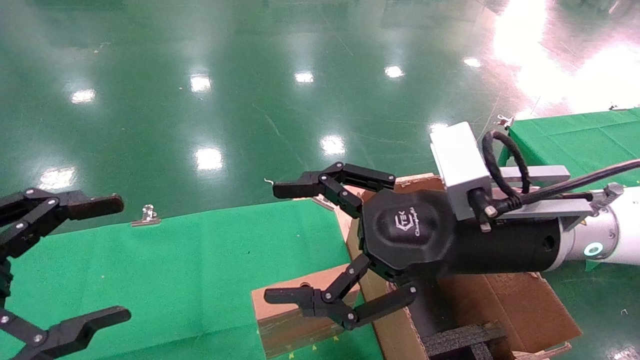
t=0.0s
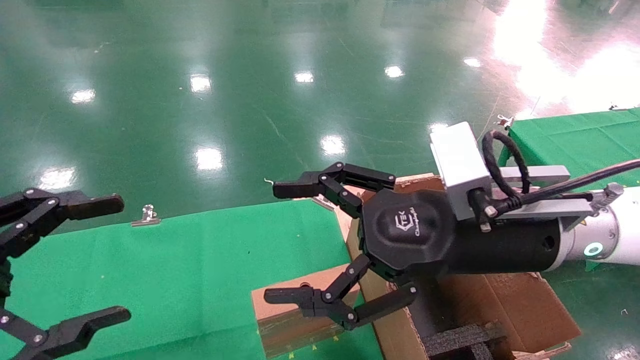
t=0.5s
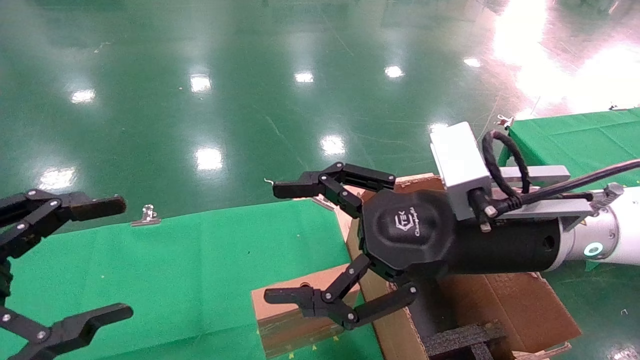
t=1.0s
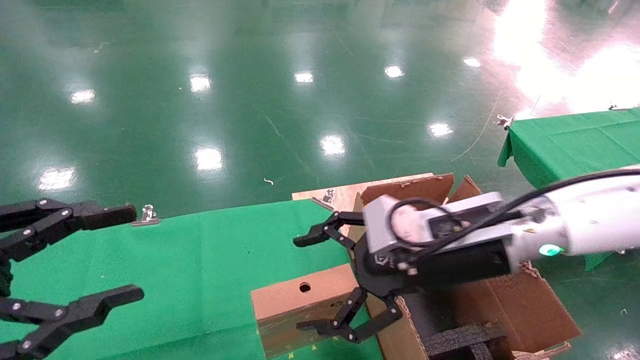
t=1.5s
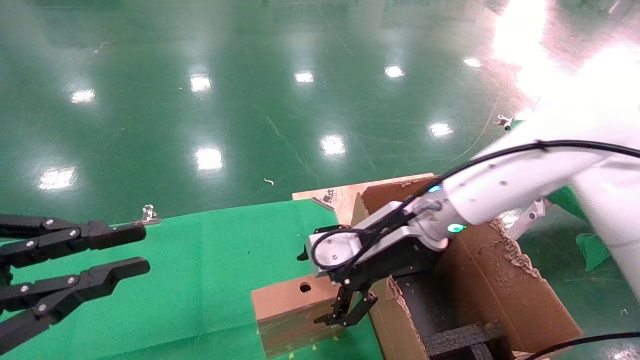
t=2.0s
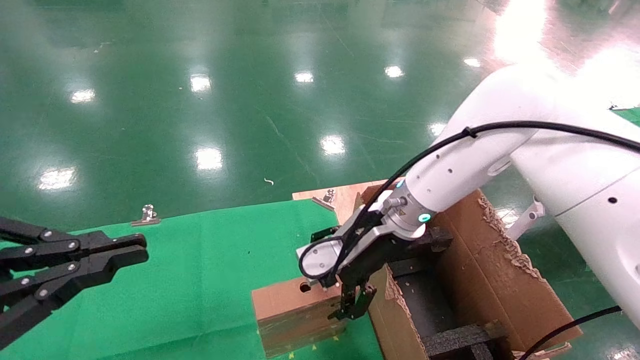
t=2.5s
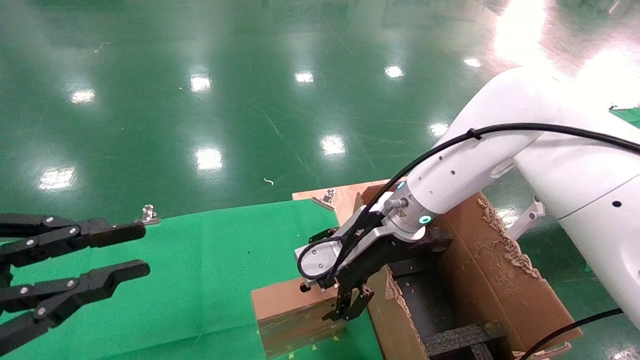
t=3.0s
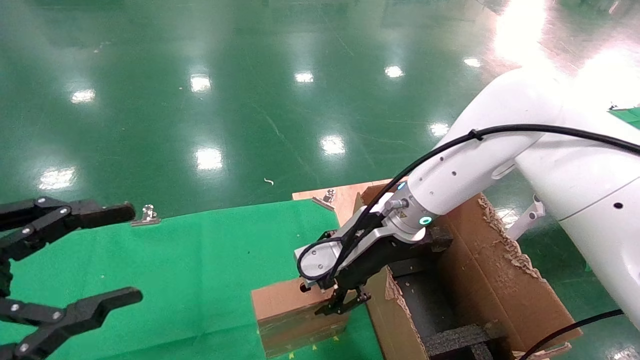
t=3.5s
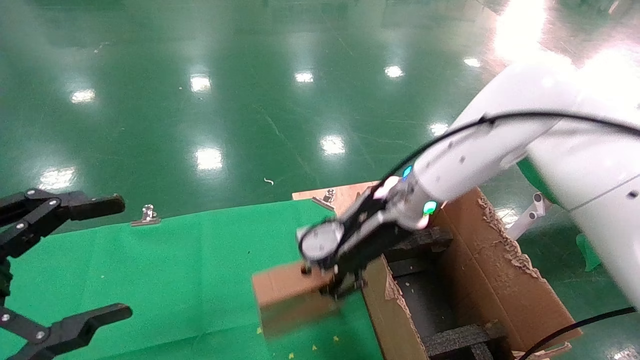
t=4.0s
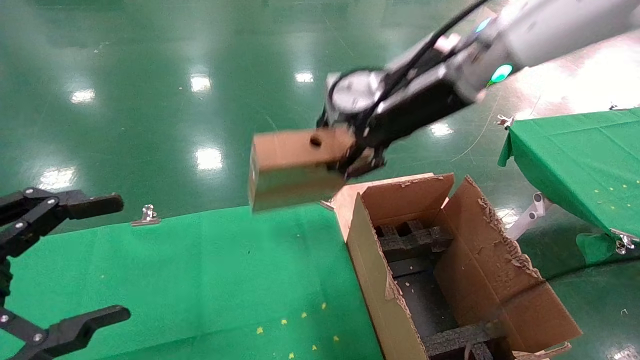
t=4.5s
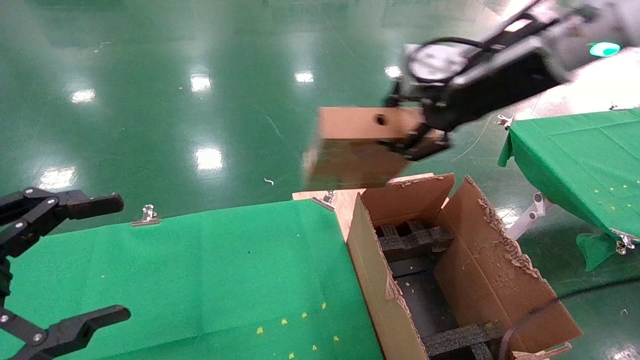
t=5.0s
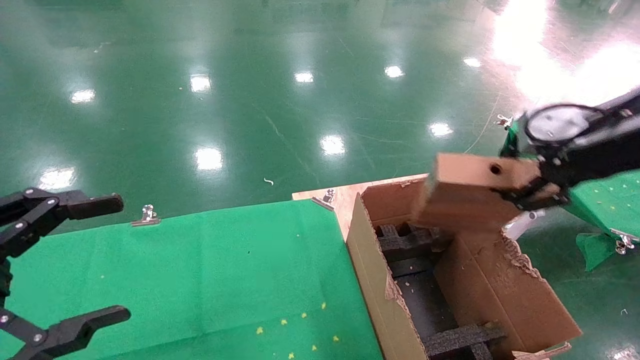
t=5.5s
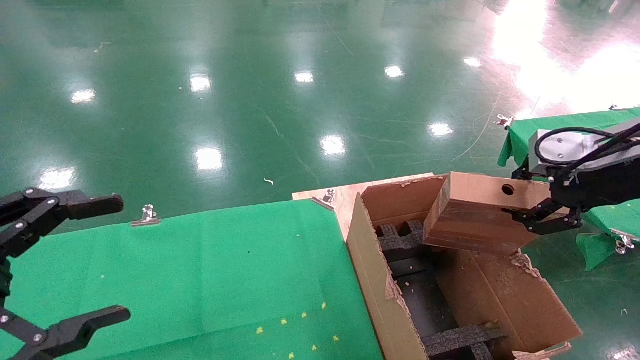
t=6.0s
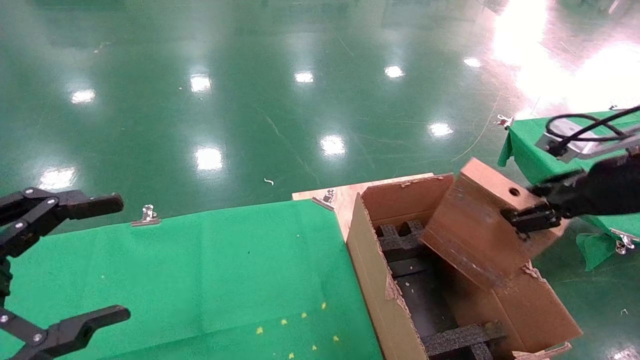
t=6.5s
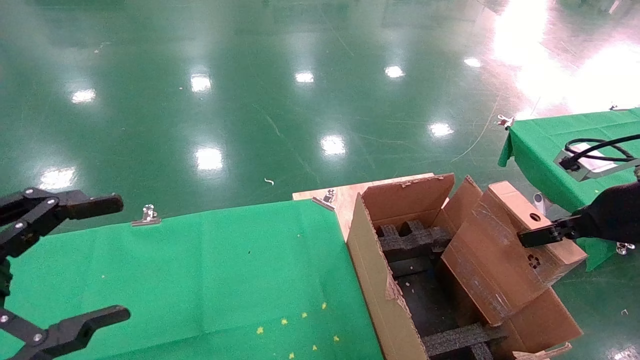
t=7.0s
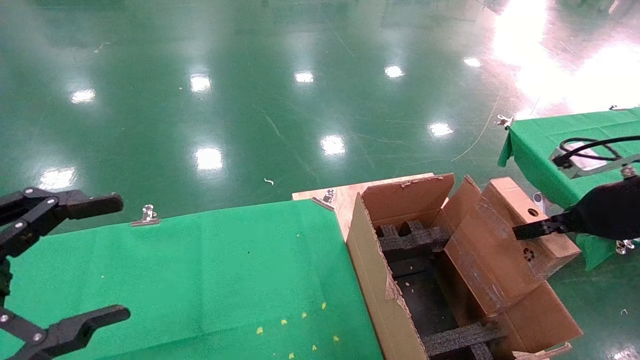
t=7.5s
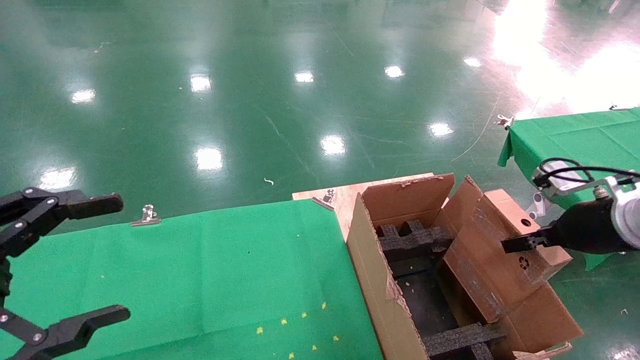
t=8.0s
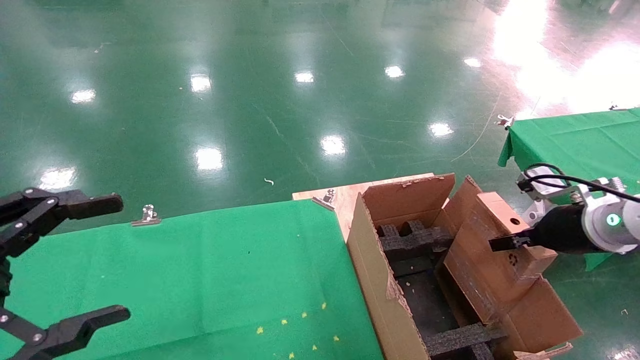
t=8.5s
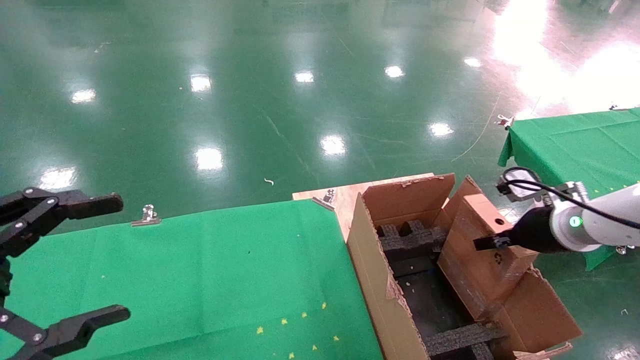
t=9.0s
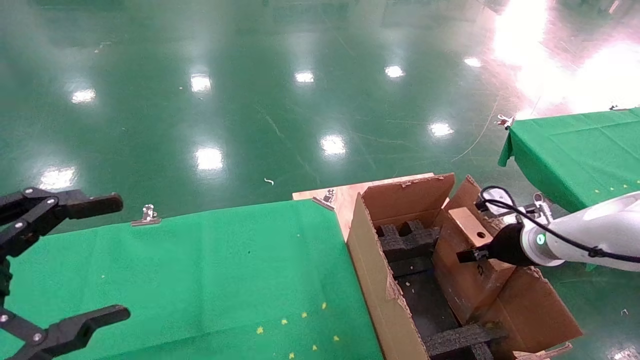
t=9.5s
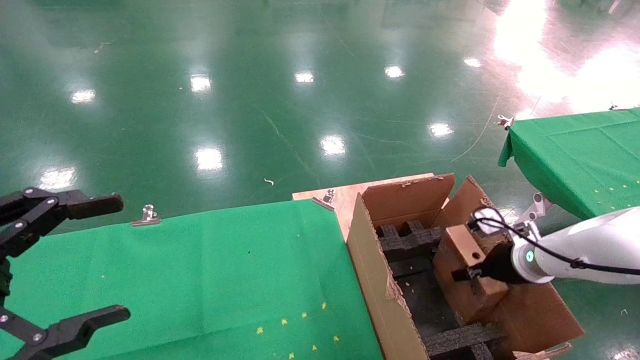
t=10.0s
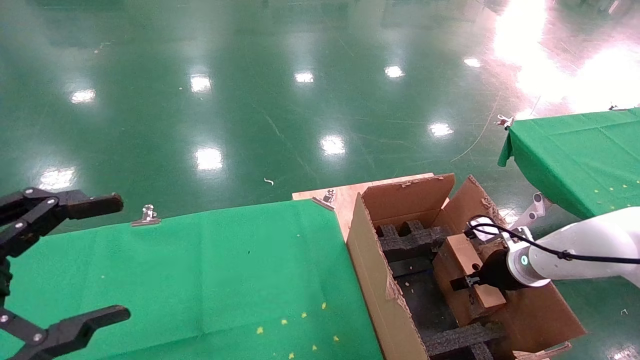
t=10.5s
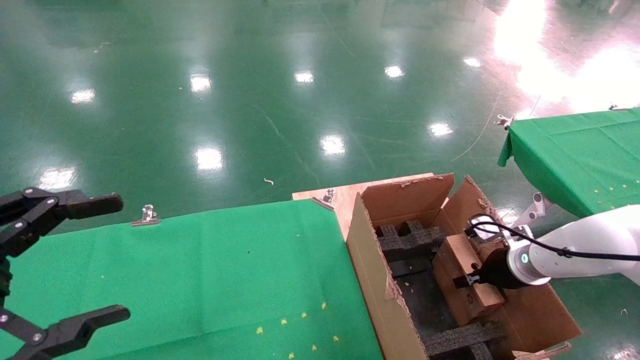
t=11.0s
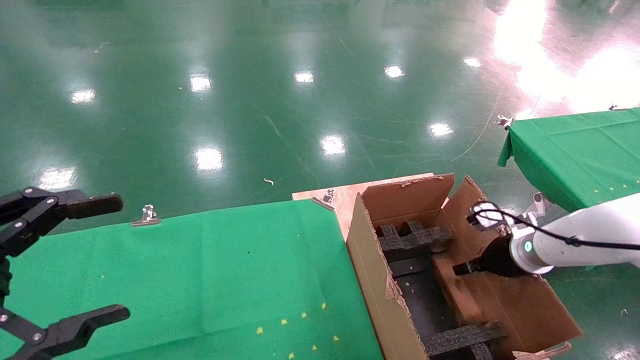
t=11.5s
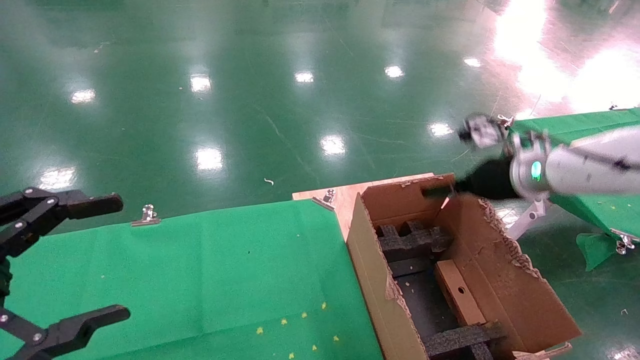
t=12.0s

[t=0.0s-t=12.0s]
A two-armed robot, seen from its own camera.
Task of the whole recording: using a robotic arm to pick up a cardboard box and palace it the carton.
Step, t=1.5s to t=3.5s: Pick up the mouse and the power cord paper box.
Step, t=4.0s to t=11.5s: Place the mouse and the power cord paper box into the container.
t=0.0s to t=2.0s: The right gripper goes roughly 10 cm forward and downward, while the left gripper closes.
t=2.0s to t=4.0s: The left gripper opens its fingers, while the right gripper closes up.
t=4.0s to t=6.0s: The right gripper travels to the right and backward by approximately 30 cm.
t=6.0s to t=8.0s: The right gripper moves downward, roughly 10 cm.
t=8.0s to t=10.0s: The right gripper moves downward and forward, some 15 cm.
t=10.0s to t=12.0s: The right gripper goes roughly 15 cm upward, and opens.

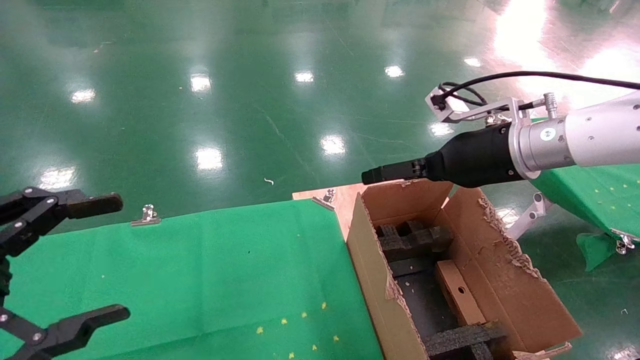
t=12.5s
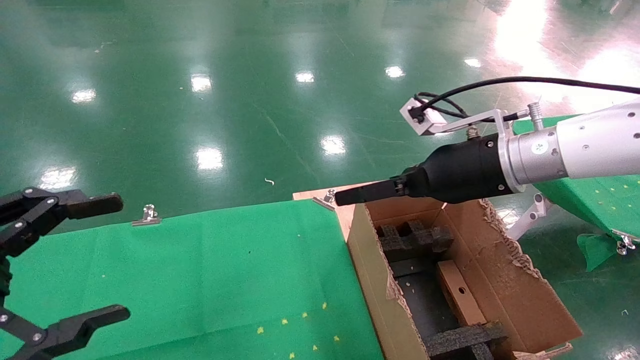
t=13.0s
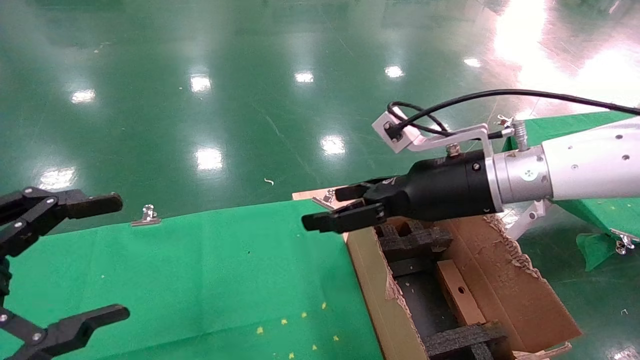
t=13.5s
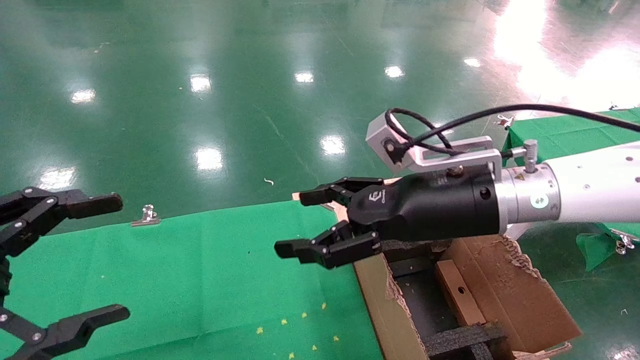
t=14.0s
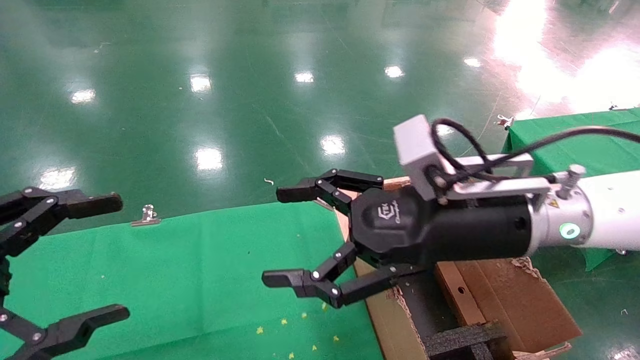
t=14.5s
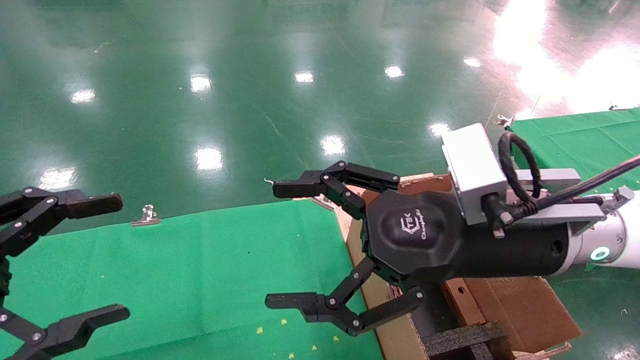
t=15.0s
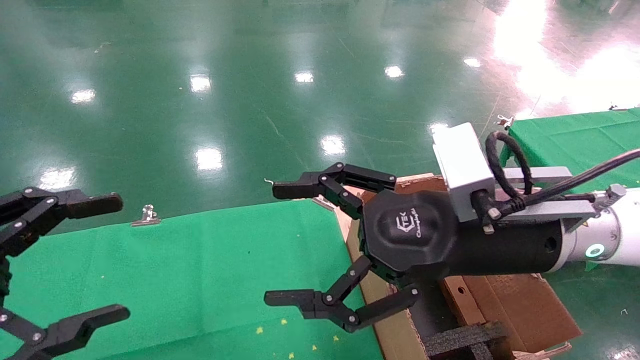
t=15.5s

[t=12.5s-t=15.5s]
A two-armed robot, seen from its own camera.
Task of the whole recording: using a robotic arm to pick up a cardboard box and palace it the carton.
t=12.5s to t=14.0s: The right gripper travels to the left and backward by approximately 10 cm.
t=14.0s to t=15.5s: The right gripper heads backward, covering roughly 5 cm.
